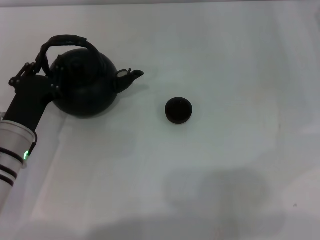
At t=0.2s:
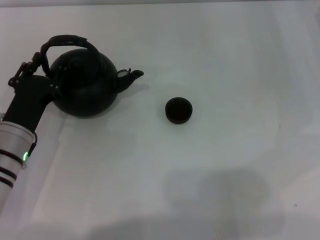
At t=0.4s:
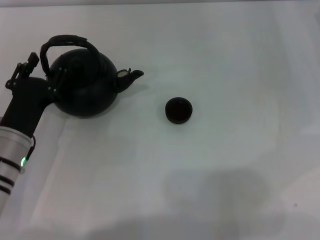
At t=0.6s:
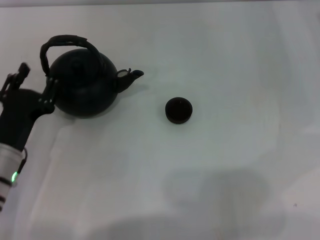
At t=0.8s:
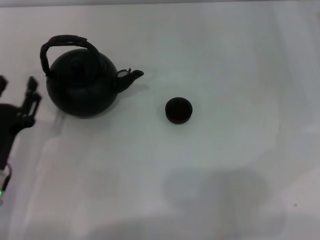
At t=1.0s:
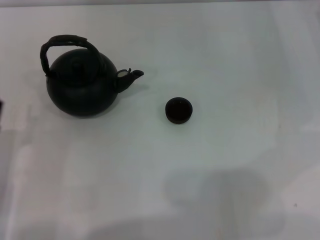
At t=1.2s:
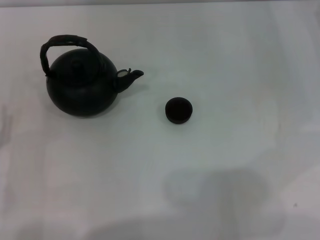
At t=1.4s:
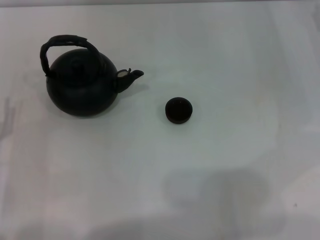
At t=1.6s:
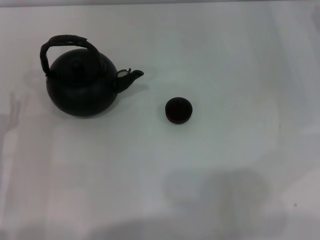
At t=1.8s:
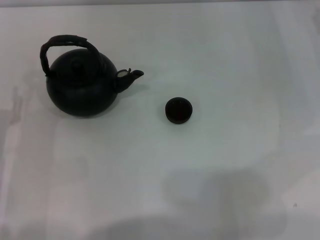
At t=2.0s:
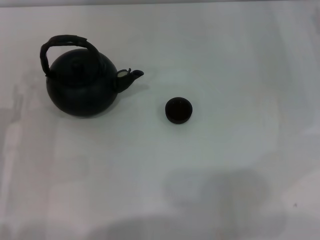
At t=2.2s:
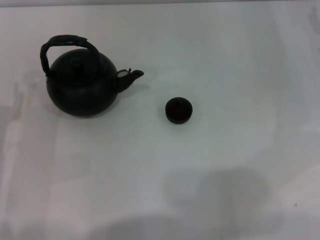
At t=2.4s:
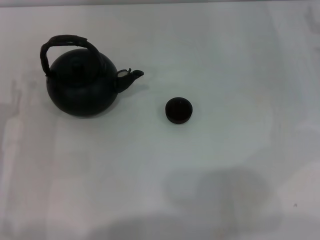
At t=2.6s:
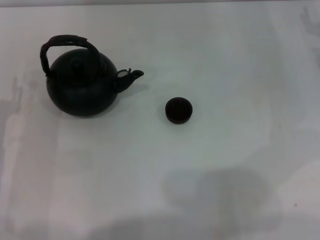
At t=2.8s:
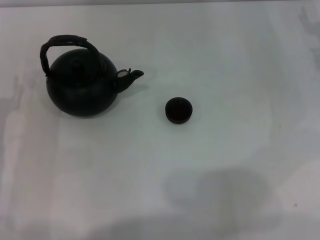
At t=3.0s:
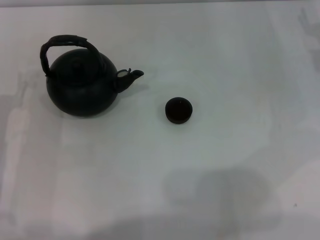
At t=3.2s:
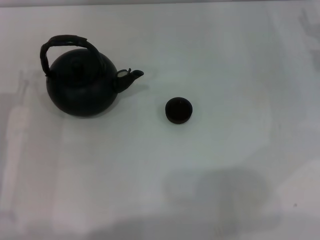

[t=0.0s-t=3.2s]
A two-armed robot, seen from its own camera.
Task of the whole recording: Grasp the handle of the teapot with one hand and pour tea into the teacup.
t=0.0s to t=1.6s: The left gripper travels to the left and backward by about 10 cm, and opens its fingers.

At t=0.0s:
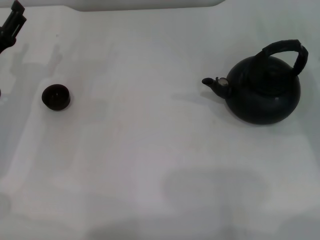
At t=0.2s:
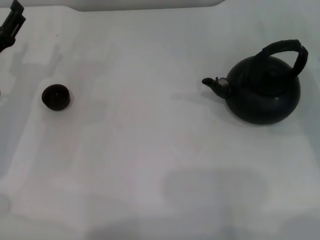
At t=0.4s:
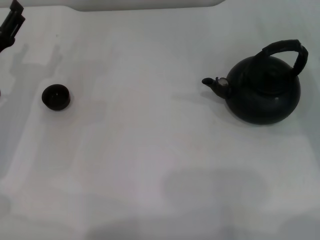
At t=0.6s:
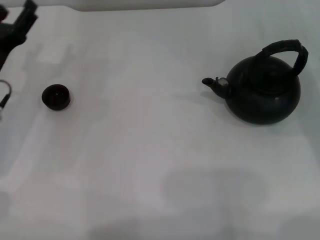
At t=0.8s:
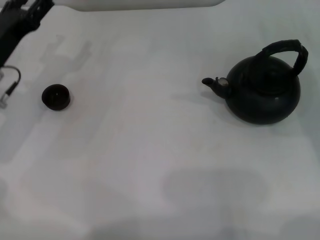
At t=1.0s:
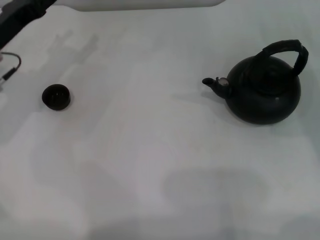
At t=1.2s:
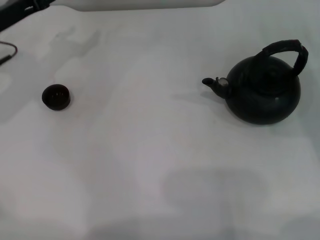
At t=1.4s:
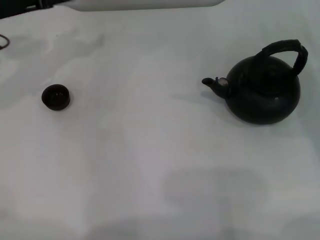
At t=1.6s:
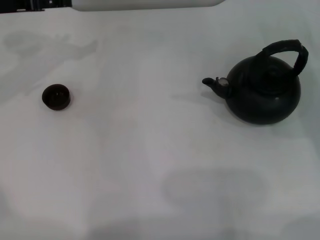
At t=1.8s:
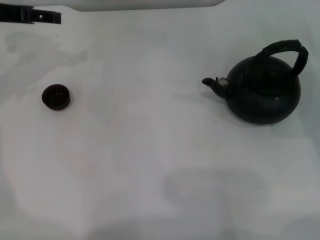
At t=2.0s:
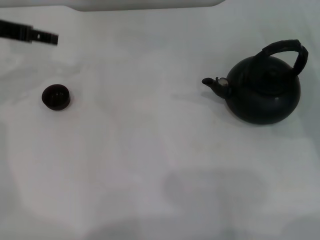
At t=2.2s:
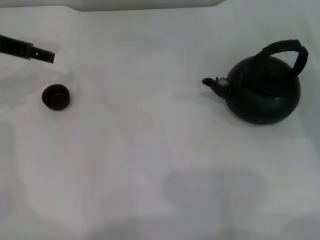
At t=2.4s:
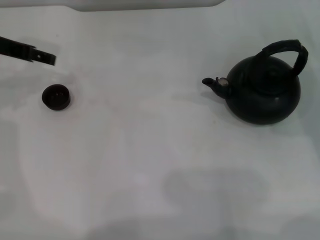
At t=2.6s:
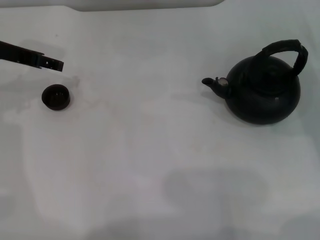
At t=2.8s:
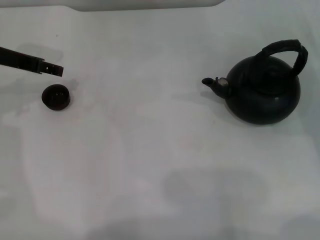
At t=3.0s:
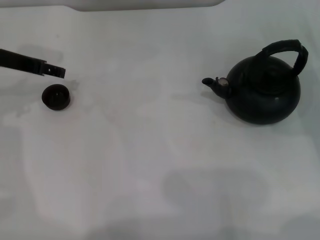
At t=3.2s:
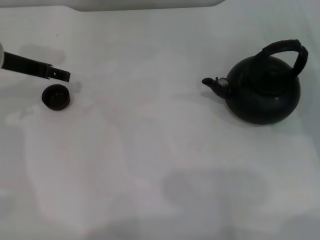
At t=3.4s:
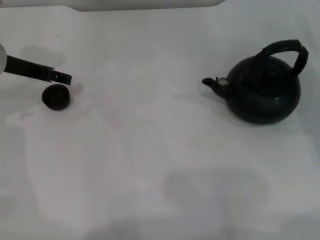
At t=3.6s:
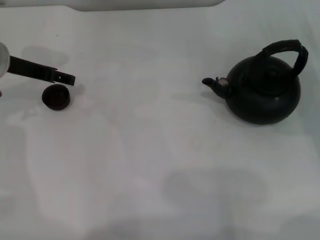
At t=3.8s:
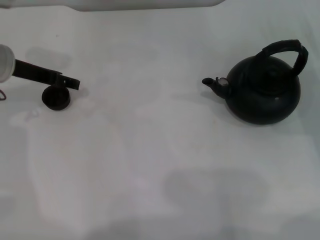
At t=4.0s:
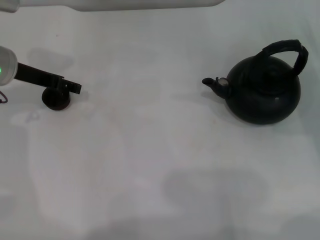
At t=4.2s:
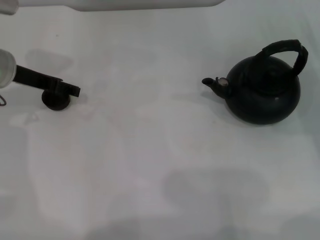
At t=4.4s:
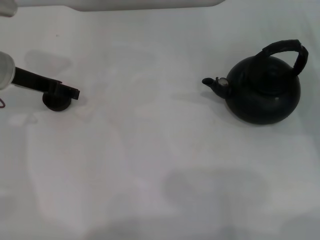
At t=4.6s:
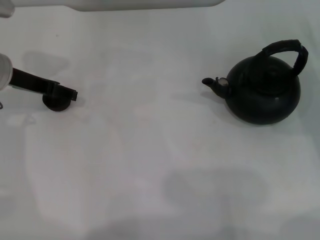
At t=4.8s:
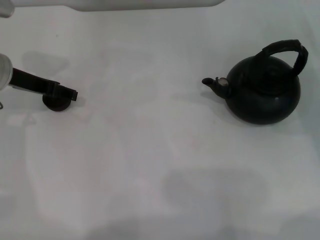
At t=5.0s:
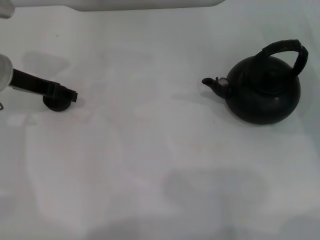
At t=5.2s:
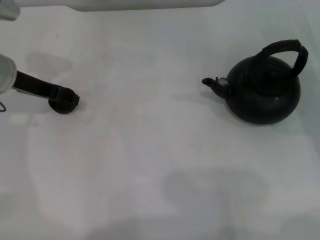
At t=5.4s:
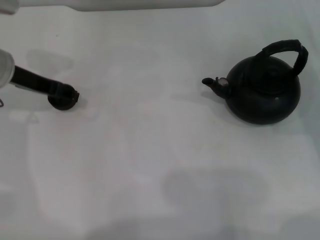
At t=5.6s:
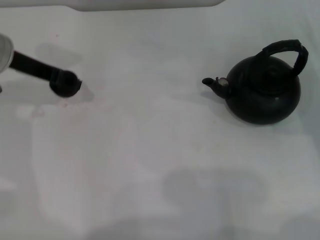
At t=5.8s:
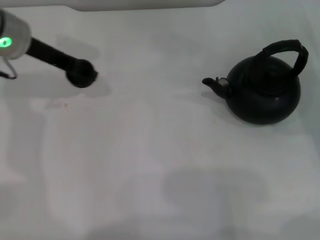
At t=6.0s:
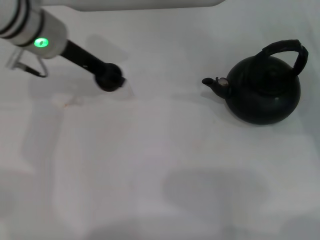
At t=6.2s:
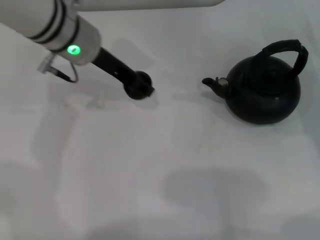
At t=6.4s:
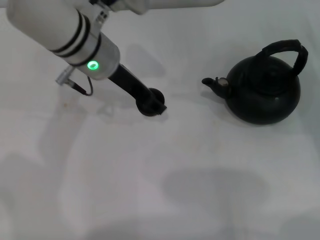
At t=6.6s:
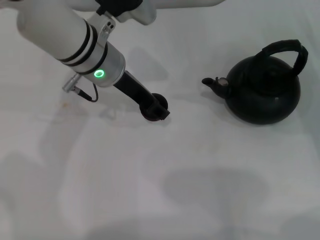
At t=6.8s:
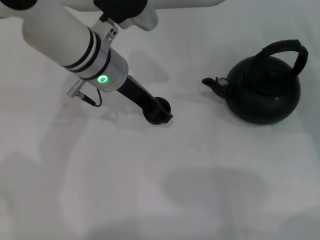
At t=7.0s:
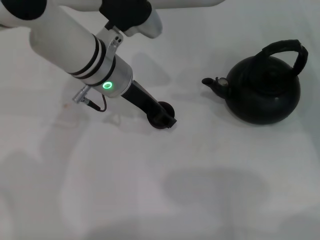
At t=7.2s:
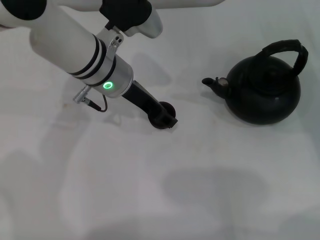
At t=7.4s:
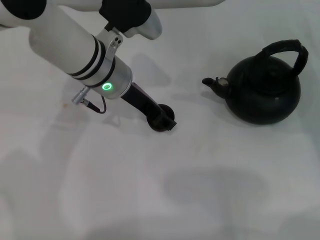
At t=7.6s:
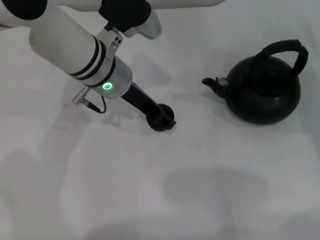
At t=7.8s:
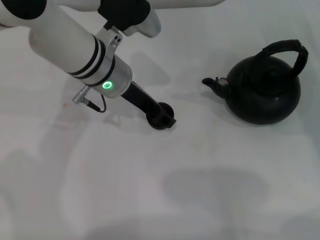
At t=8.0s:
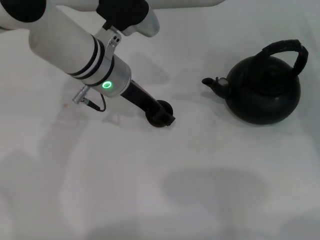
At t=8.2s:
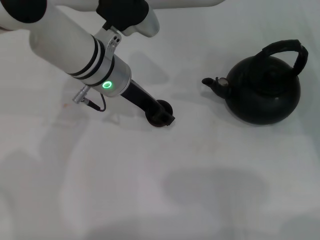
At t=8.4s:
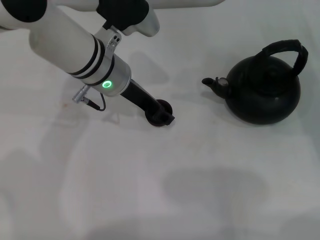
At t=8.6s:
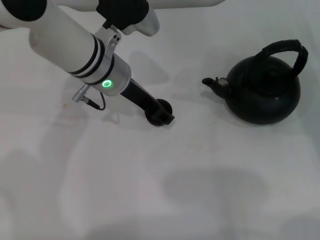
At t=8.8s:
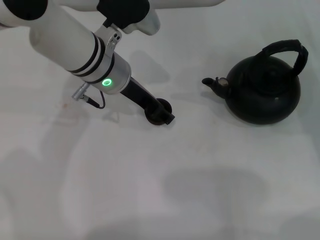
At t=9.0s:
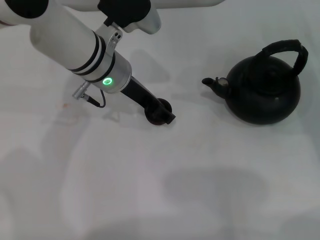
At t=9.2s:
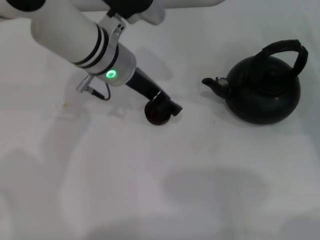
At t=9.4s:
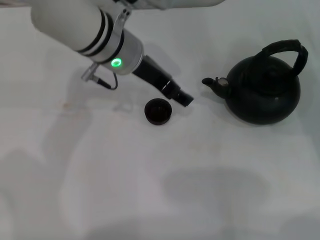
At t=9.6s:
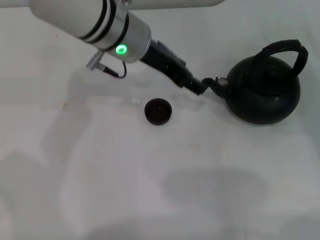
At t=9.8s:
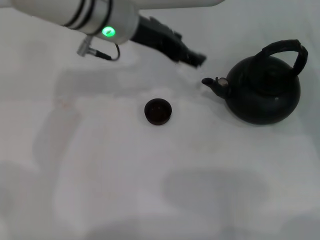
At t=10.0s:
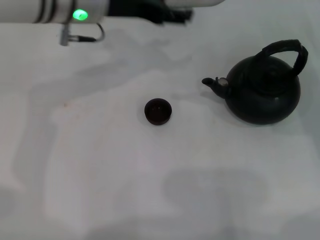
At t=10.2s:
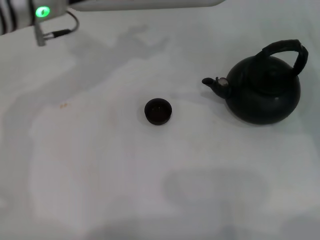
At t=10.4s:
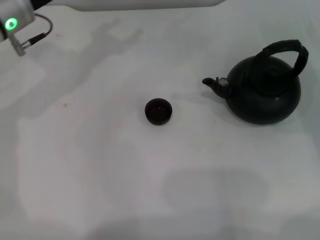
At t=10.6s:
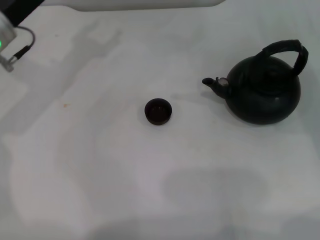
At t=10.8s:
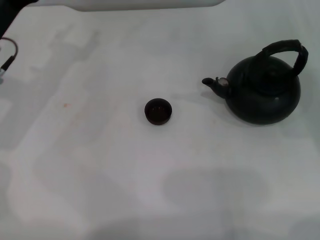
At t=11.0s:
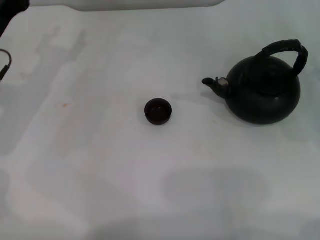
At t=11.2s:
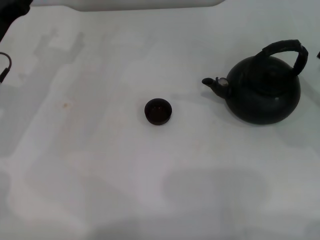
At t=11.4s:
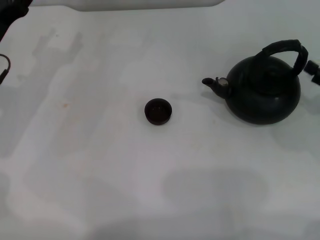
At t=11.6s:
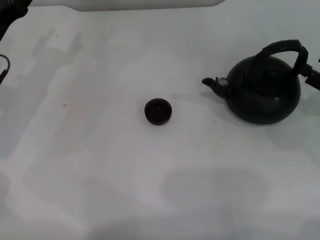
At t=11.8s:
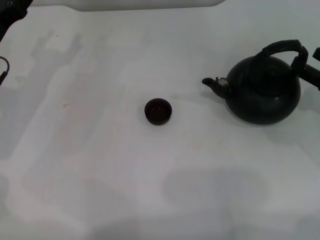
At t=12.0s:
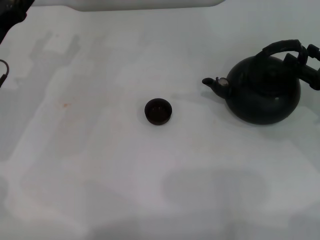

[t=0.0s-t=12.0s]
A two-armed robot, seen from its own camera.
Task of the whole recording: Grasp the handle of the teapot with one hand and pour tea into the teacup.
Step, t=0.0s to t=5.4s: Pick up the teacup with the left gripper.
Step, t=5.8s to t=9.4s: Place the teacup in the center of view with the left gripper.
t=0.0s to t=1.6s: The left gripper moves upward and forward, roughly 15 cm.
t=3.0s to t=4.4s: The grippers make only small movements.
t=4.4s to t=6.0s: The left gripper is displaced to the right and upward by approximately 10 cm, and closes its fingers.
t=6.0s to t=7.6s: The left gripper travels to the right and downward by some 10 cm.
t=7.6s to t=9.0s: The left gripper opens its fingers.
t=9.0s to t=10.4s: The left gripper shifts roughly 15 cm to the left.
t=10.4s to t=12.0s: The left gripper is displaced downward and to the left by about 10 cm.

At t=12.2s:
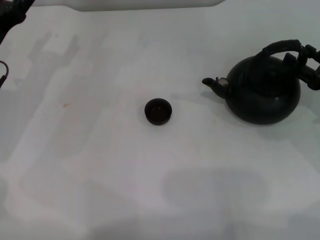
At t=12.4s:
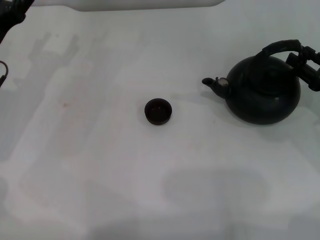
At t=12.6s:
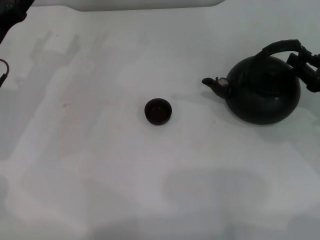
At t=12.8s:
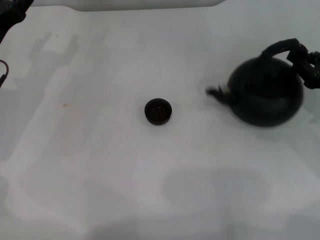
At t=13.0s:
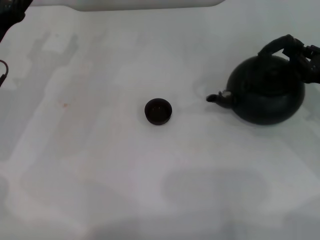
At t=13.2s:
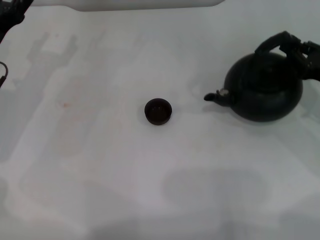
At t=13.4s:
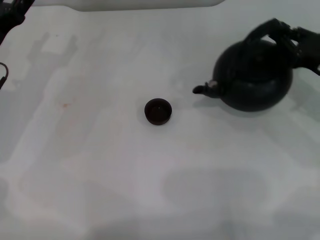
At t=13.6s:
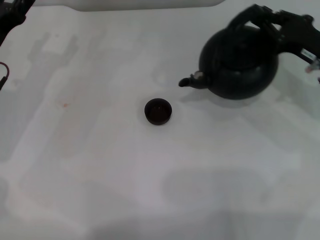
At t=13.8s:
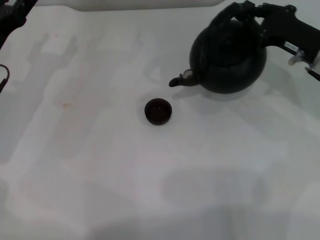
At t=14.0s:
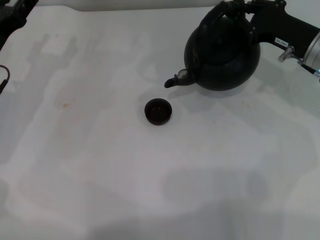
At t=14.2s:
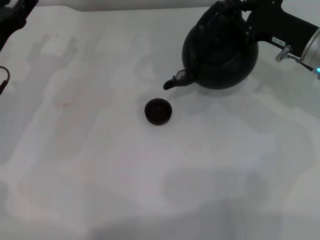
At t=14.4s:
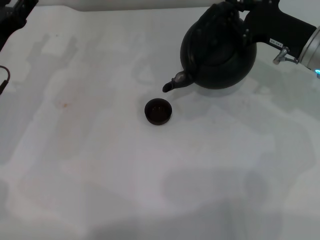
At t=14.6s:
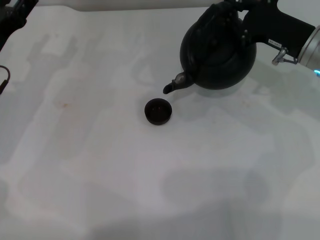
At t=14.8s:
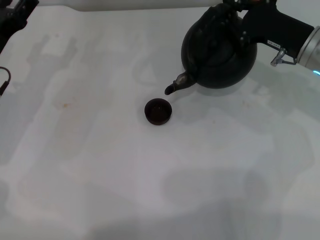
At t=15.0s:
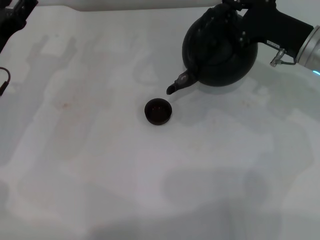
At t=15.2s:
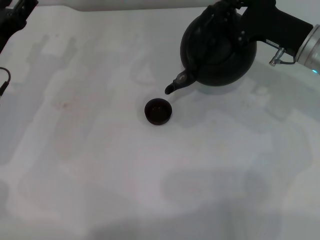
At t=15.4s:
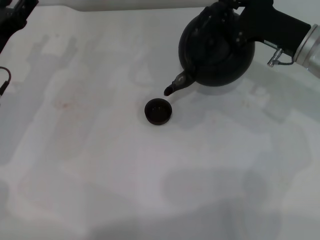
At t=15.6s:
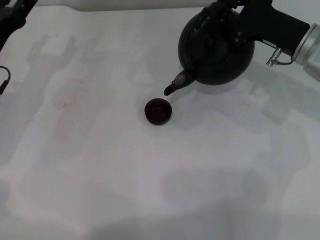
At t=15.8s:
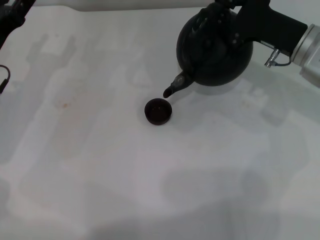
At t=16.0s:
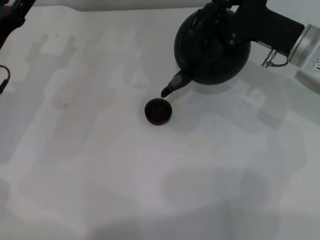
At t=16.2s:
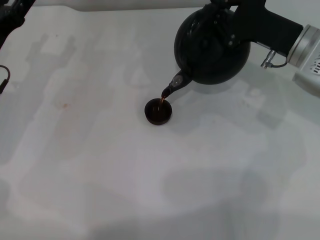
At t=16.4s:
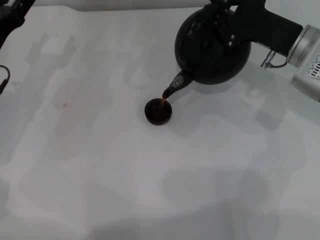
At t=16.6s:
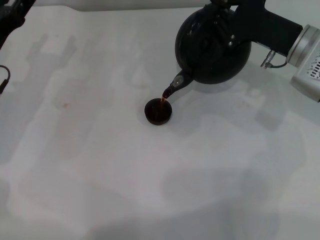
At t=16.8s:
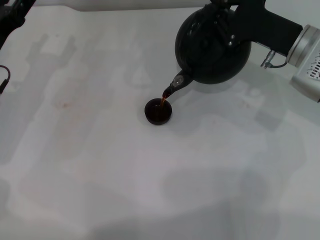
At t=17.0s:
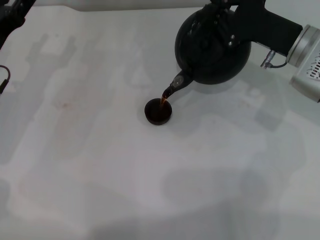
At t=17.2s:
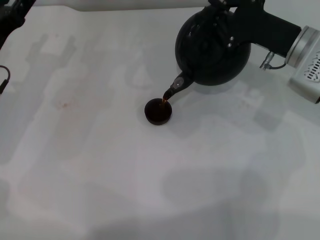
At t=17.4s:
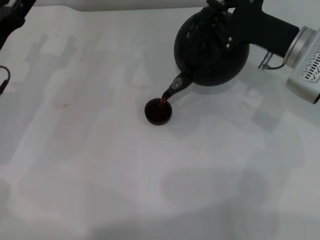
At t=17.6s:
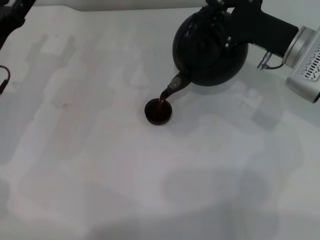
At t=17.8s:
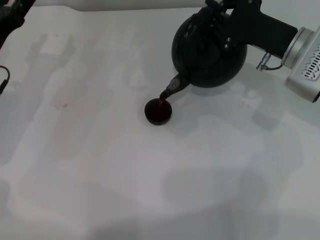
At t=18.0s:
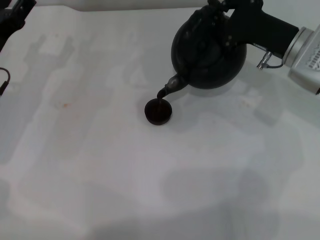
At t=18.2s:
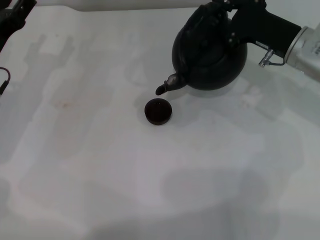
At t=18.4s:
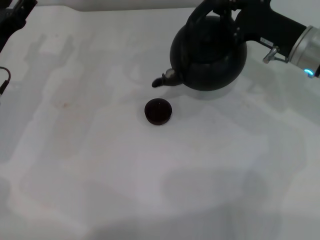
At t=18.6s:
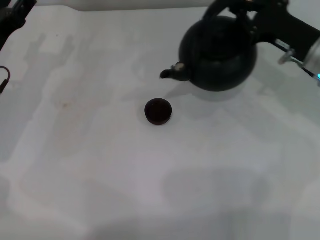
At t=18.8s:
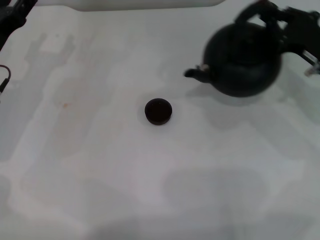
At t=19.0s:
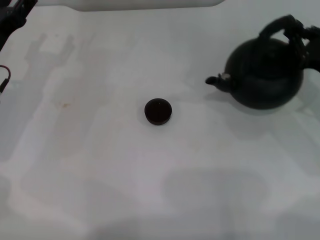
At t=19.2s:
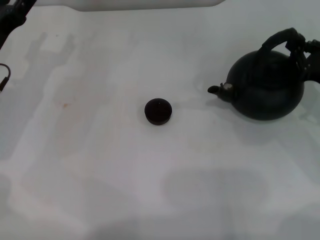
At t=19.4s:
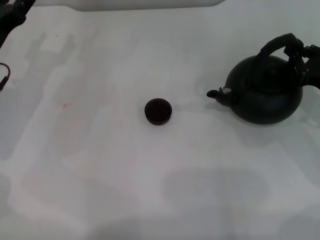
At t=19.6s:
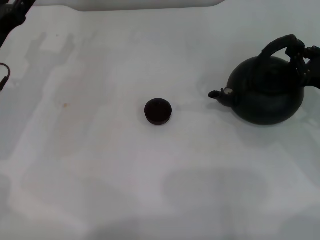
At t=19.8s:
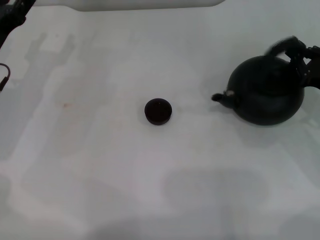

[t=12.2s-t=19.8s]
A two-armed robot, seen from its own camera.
Task of the whole recording: Grasp the handle of the teapot with one hand and pour tea into the teacup.
Step, t=13.8s to t=18.6s: Pour tea into the teacup with the right gripper.
t=12.2s to t=13.8s: The right gripper heads to the left and forward, covering approximately 10 cm, and closes up.
t=15.2s to t=18.2s: The grippers make only small movements.
t=18.2s to t=19.8s: The right gripper moves to the right, backward and downward, approximately 15 cm.
